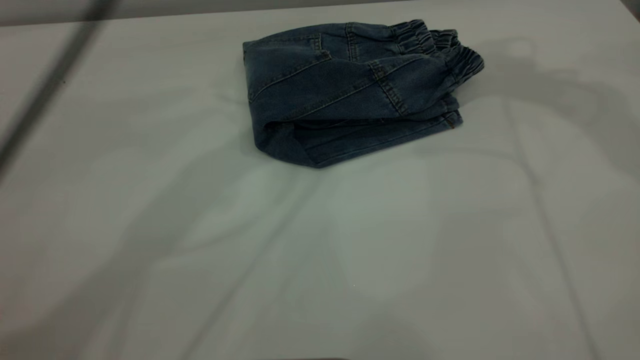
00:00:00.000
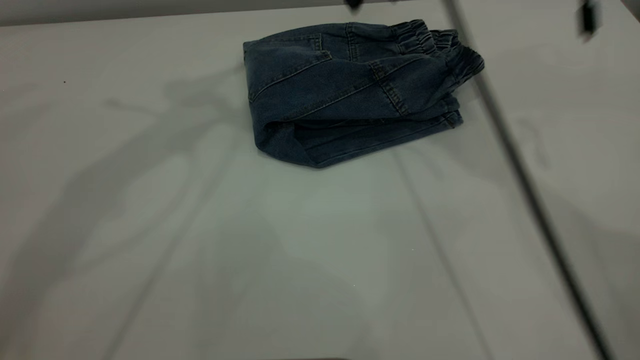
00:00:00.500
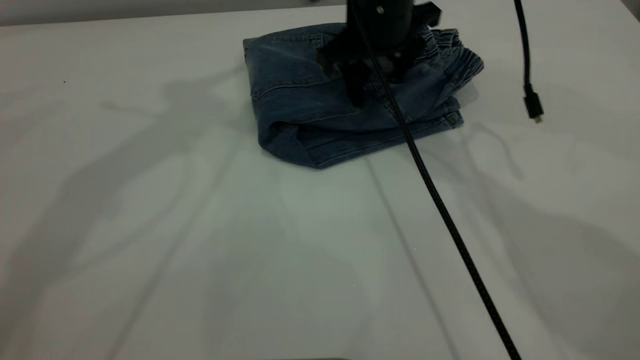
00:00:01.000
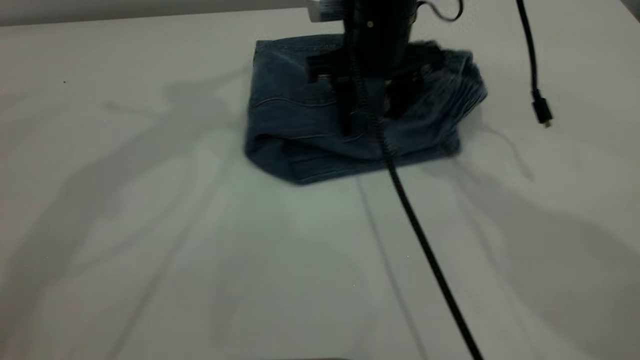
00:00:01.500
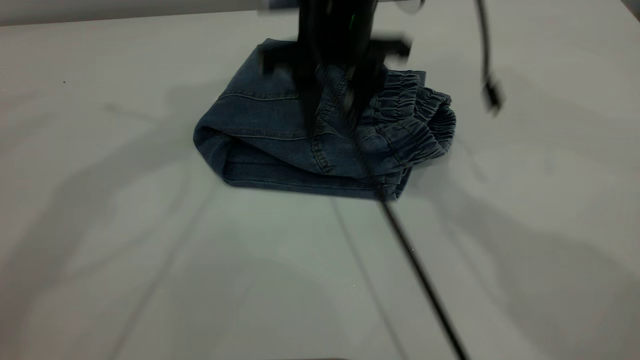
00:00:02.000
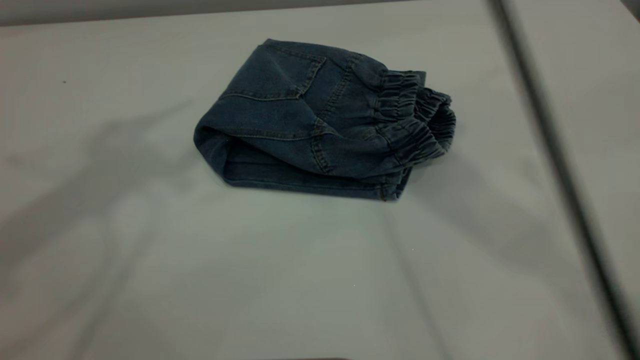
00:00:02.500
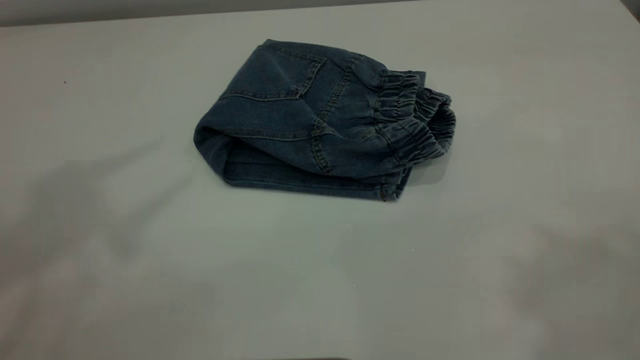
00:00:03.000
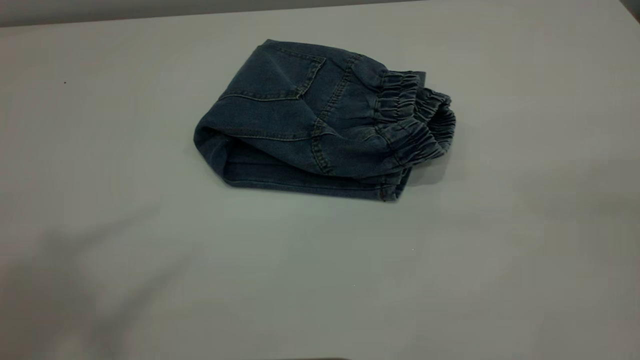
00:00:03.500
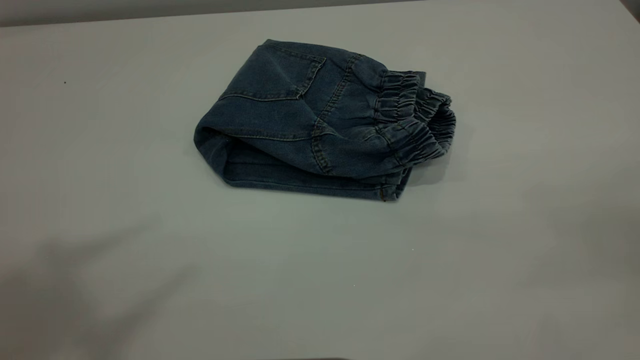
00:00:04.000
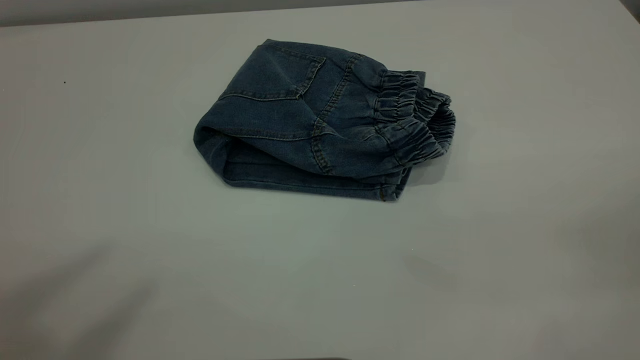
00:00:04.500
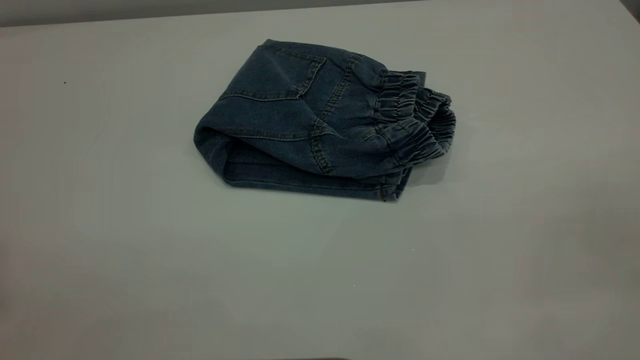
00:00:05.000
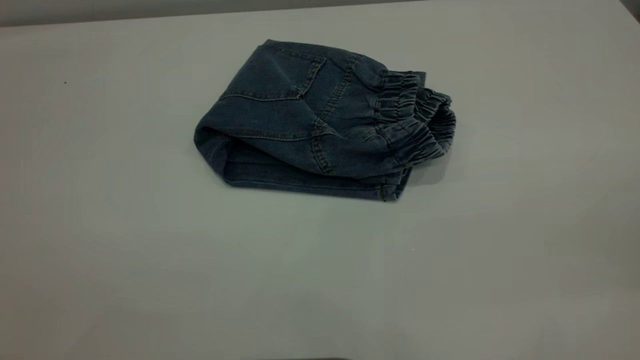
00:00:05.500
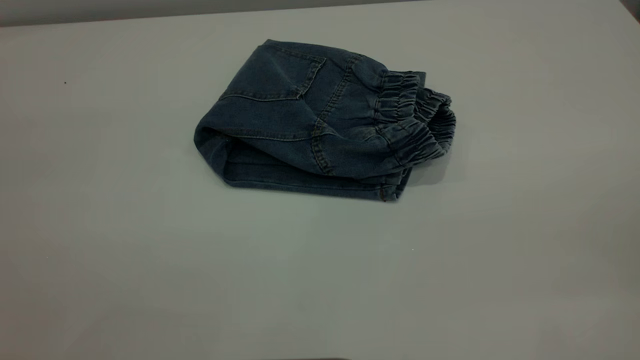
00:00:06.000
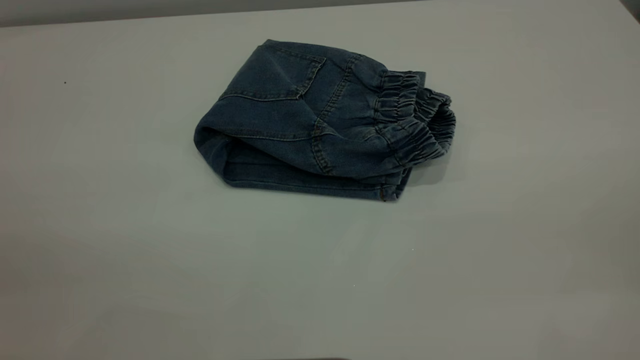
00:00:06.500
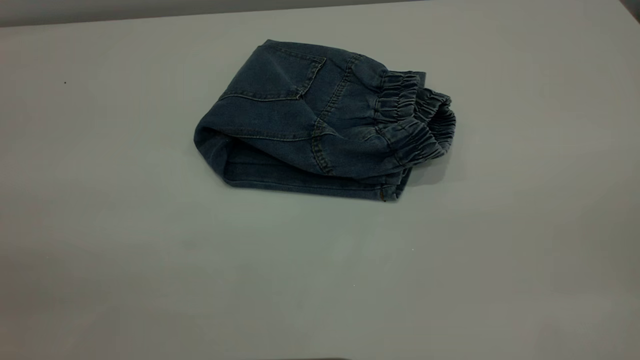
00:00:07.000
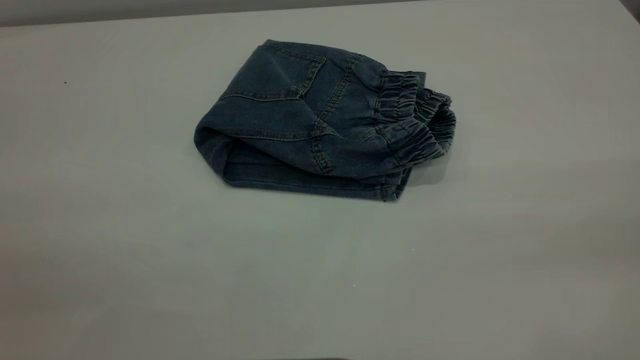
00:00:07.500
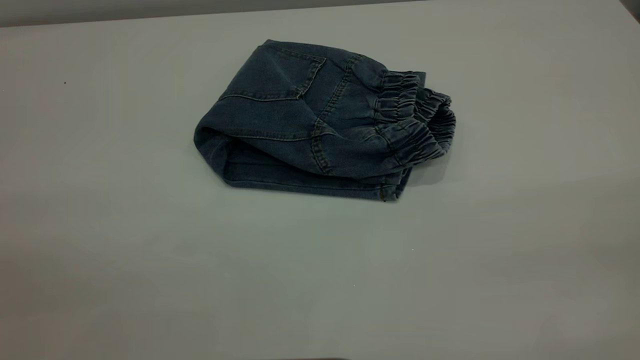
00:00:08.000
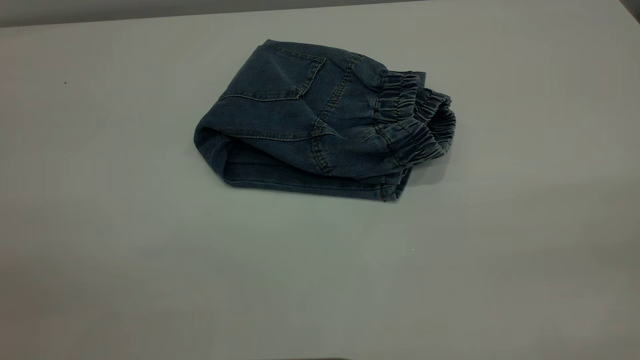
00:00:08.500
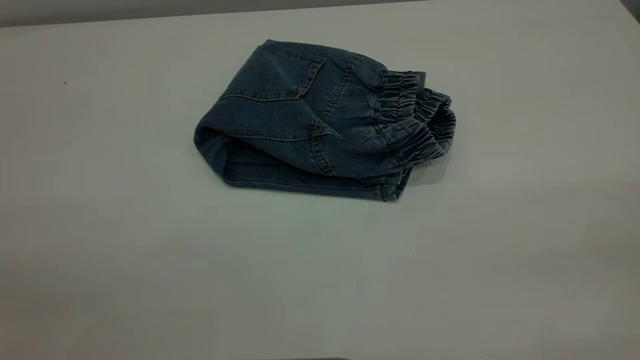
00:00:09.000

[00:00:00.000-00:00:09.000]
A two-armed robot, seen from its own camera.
00:00:00.000 to 00:00:02.000: The left gripper heads to the left and upward, covering some 15 cm. Meanwhile the right gripper goes about 25 cm to the left and downward.
00:00:02.000 to 00:00:04.500: The right gripper is displaced backward and to the right by roughly 50 cm; the left gripper heads backward and upward, covering roughly 30 cm.

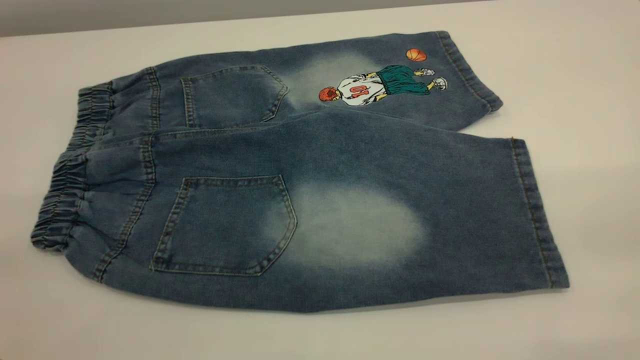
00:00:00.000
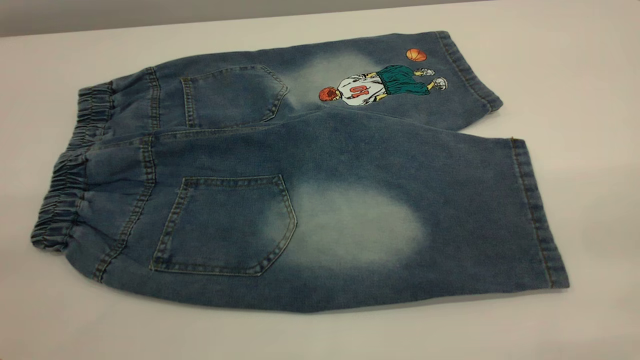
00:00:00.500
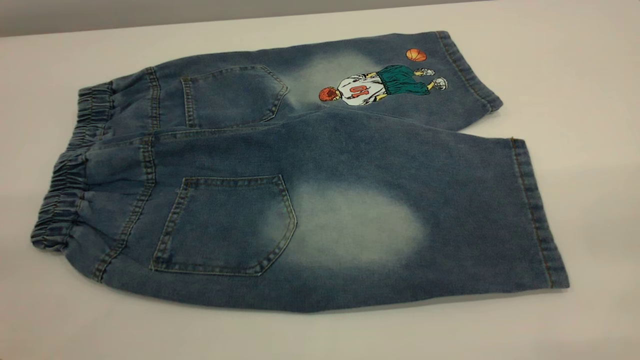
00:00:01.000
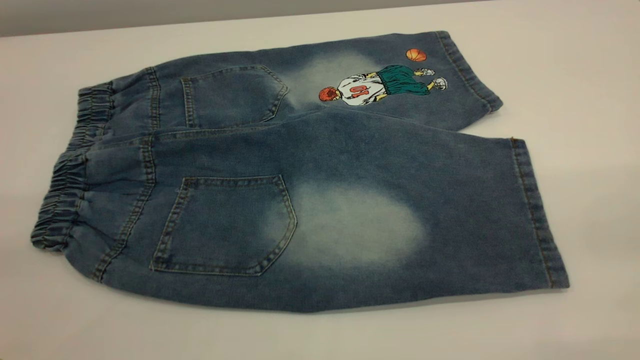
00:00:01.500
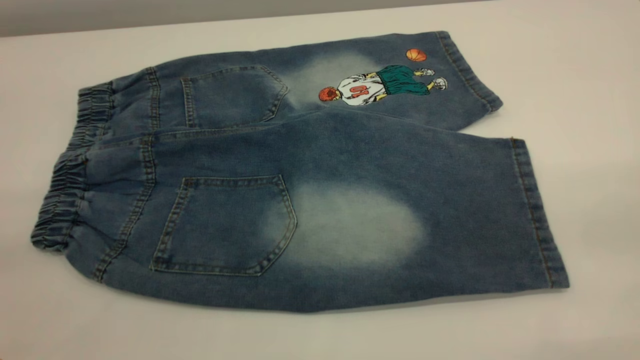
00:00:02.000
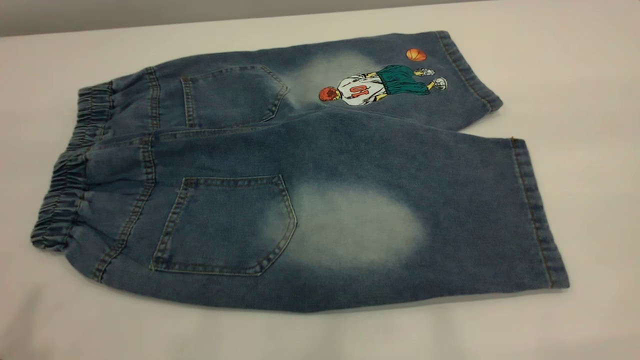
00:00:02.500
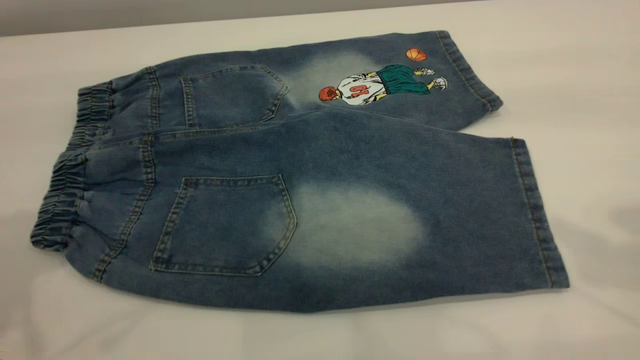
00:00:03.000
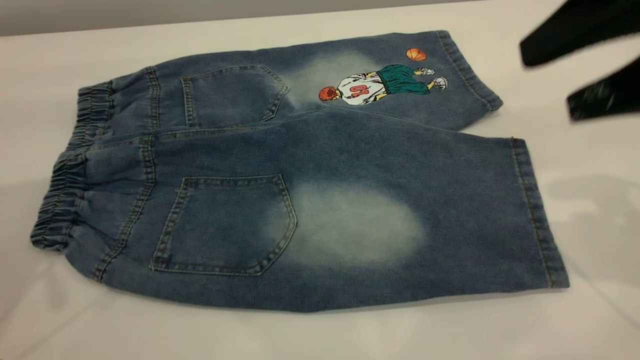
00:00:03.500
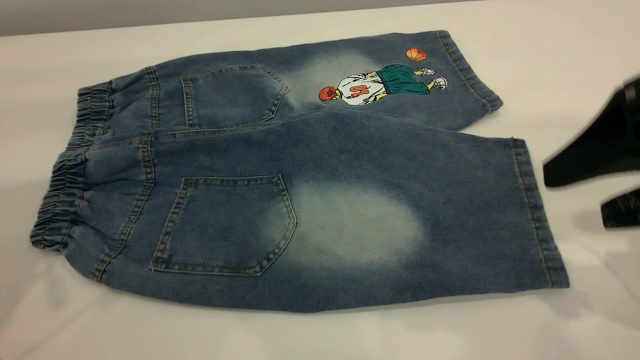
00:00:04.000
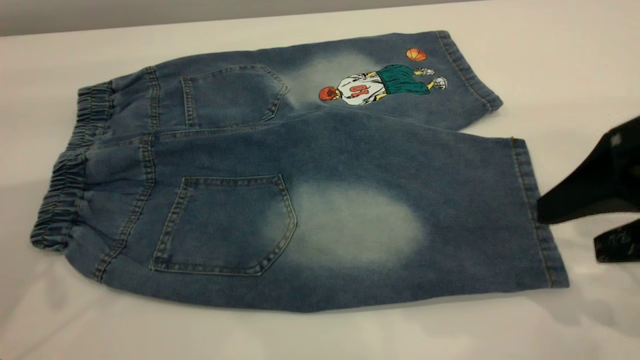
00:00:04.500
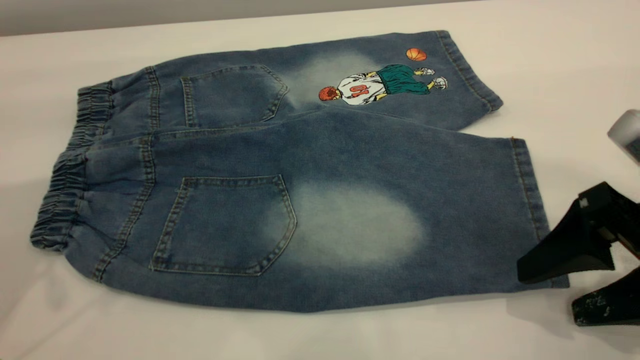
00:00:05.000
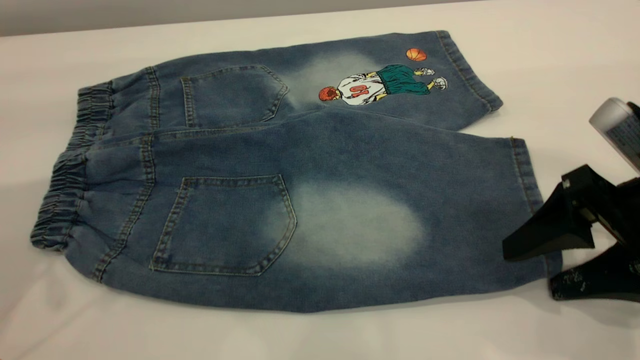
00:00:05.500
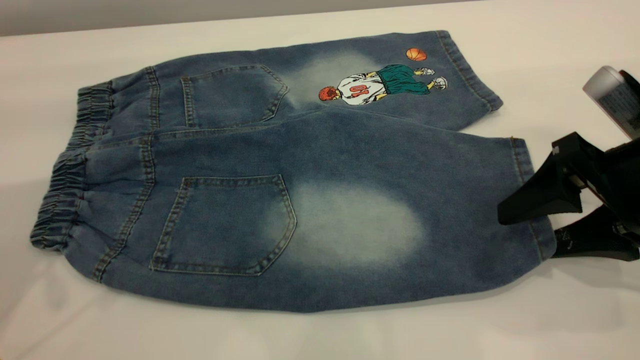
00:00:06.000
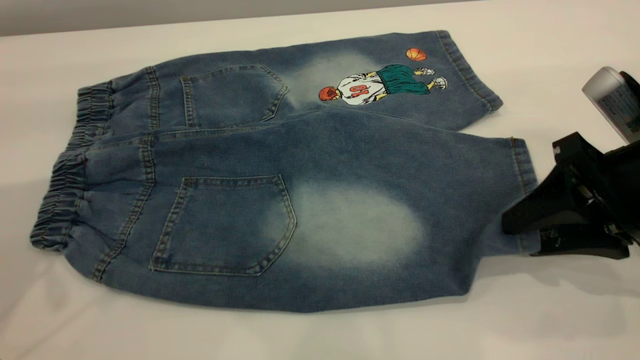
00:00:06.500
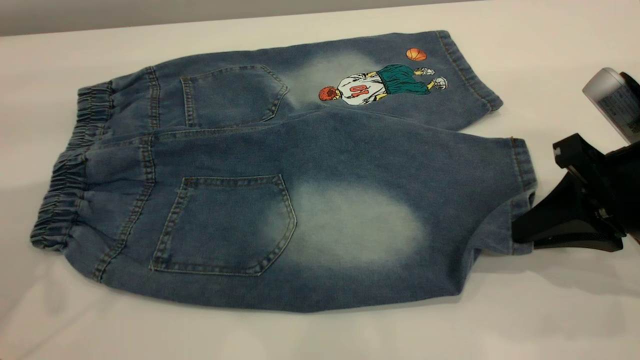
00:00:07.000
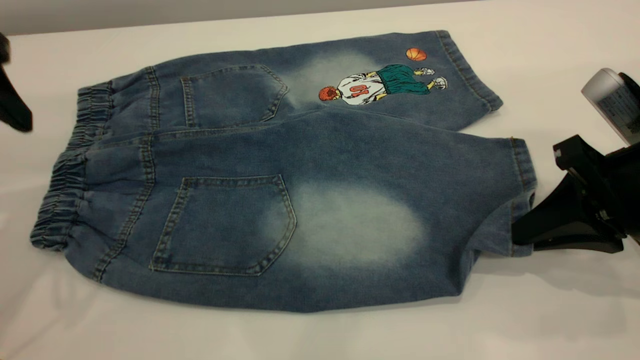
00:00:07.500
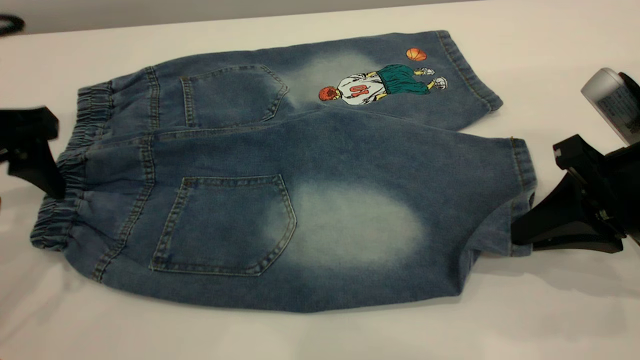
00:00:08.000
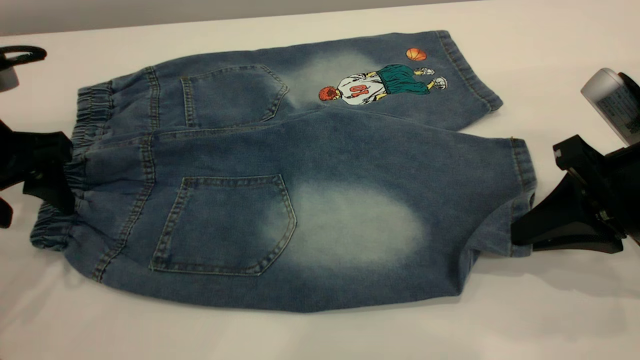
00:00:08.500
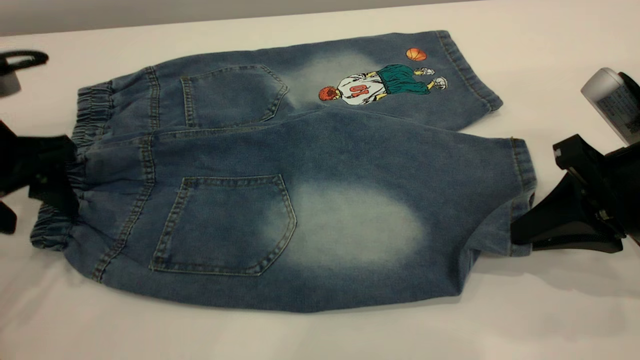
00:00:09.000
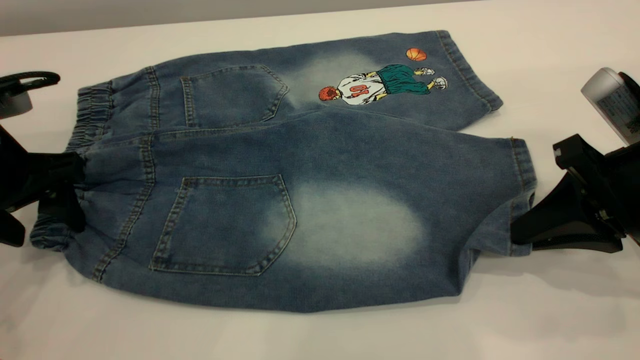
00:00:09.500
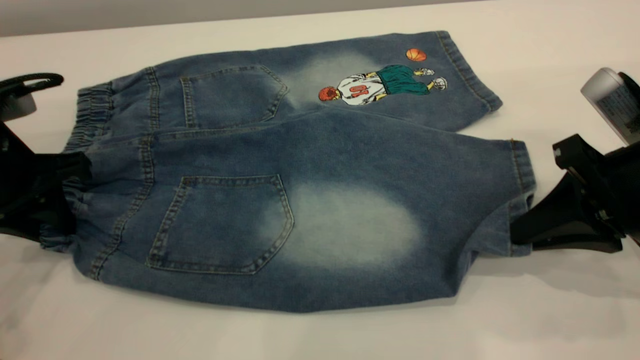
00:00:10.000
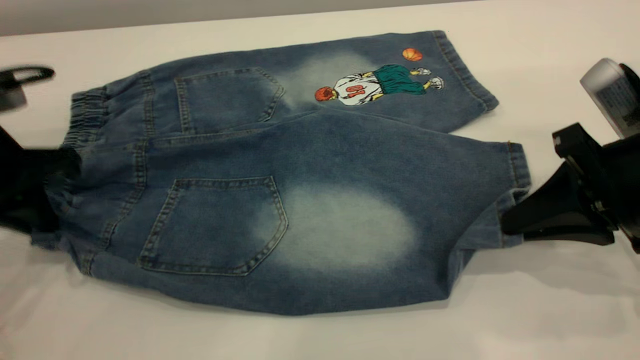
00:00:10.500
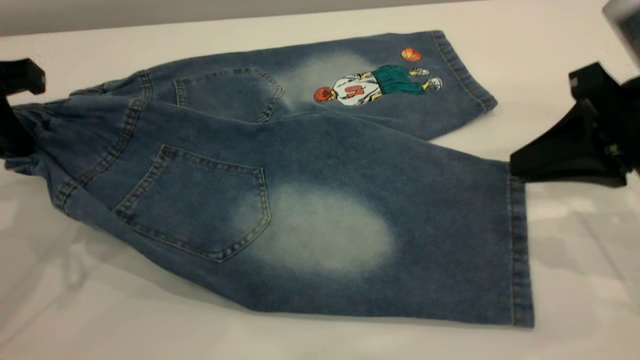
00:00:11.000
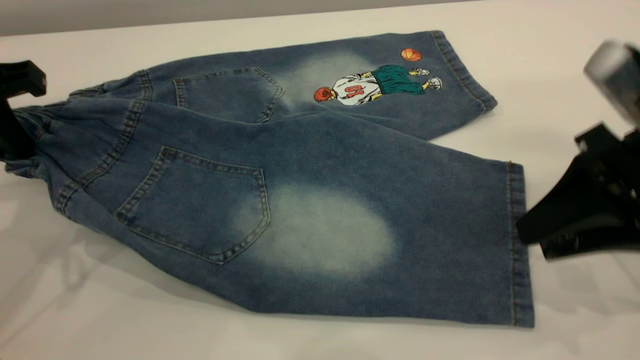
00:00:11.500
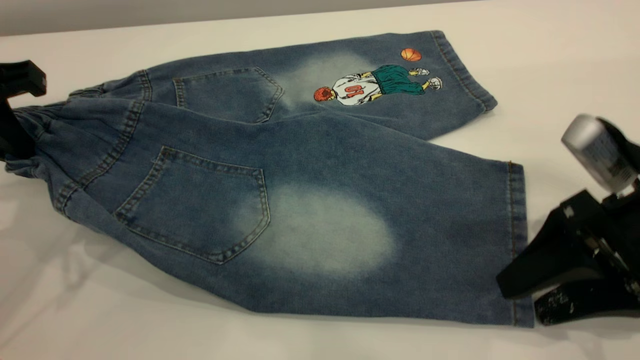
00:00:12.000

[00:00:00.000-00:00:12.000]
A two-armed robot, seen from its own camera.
00:00:00.000 to 00:00:02.000: Neither gripper changes place.
00:00:02.000 to 00:00:04.000: The right gripper is displaced forward and downward by about 25 cm.
00:00:04.000 to 00:00:06.000: The right gripper travels downward by roughly 10 cm.
00:00:06.000 to 00:00:08.000: The right gripper closes. The left gripper travels downward by about 15 cm.
00:00:08.000 to 00:00:10.000: The left gripper goes some 5 cm downward, and closes up.
00:00:10.000 to 00:00:12.000: The right gripper opens its fingers, while the left gripper is displaced upward by some 10 cm.
